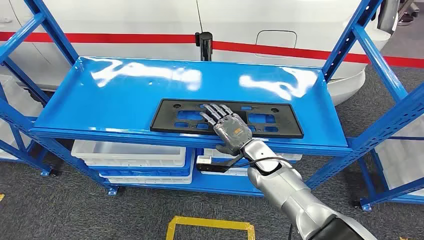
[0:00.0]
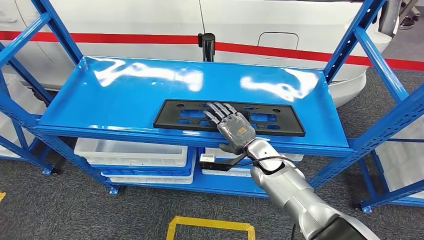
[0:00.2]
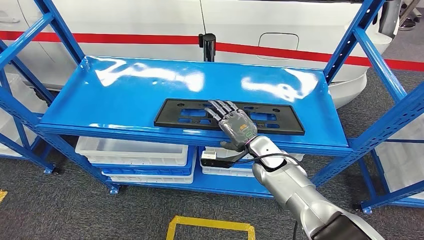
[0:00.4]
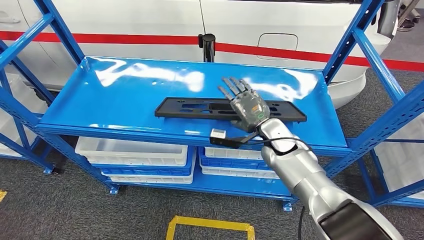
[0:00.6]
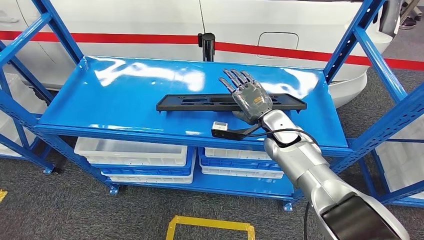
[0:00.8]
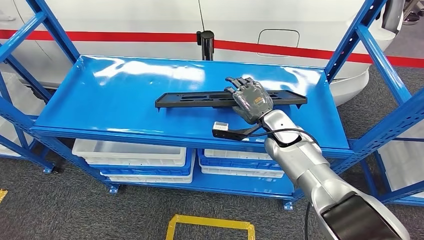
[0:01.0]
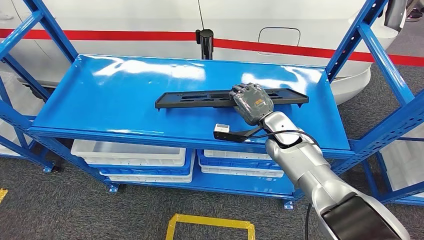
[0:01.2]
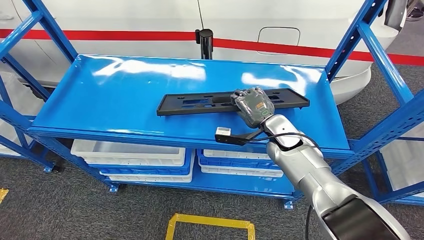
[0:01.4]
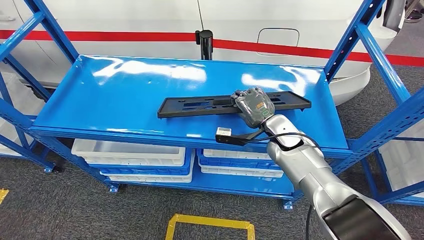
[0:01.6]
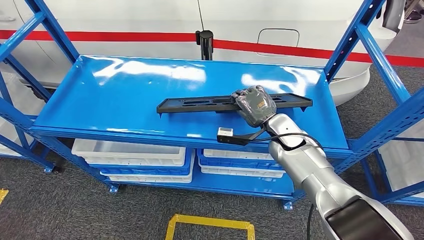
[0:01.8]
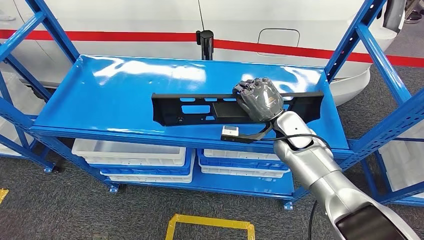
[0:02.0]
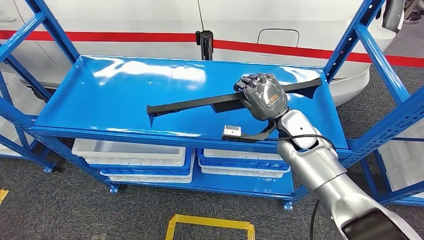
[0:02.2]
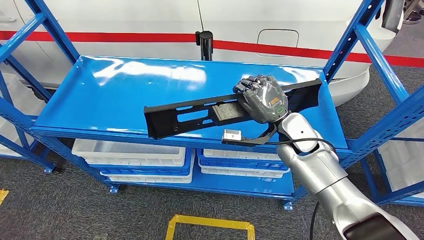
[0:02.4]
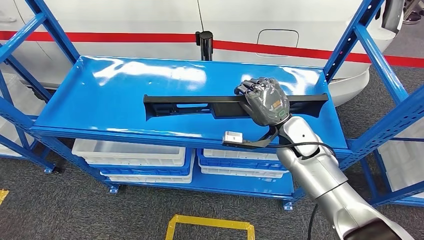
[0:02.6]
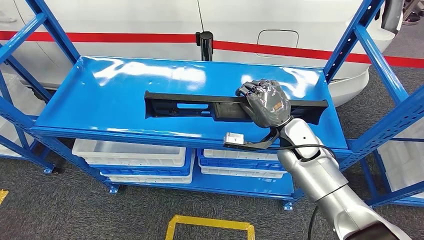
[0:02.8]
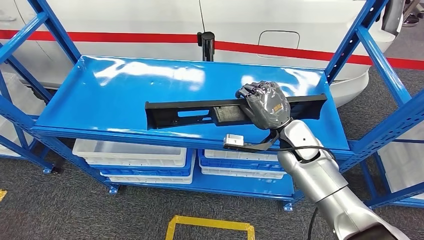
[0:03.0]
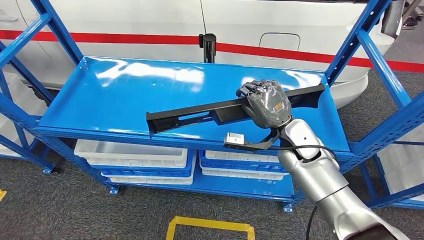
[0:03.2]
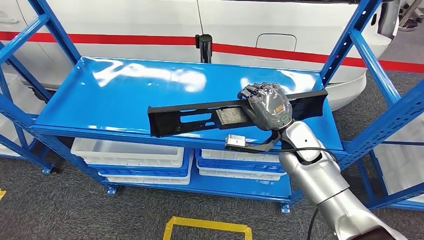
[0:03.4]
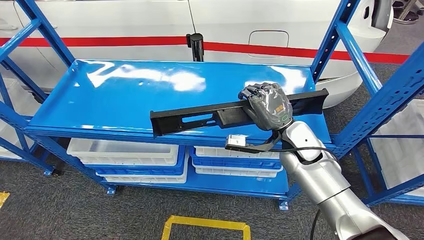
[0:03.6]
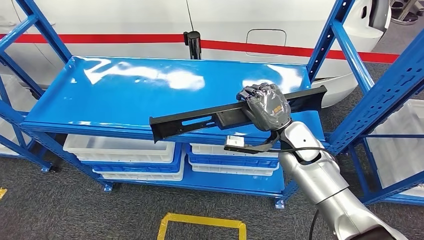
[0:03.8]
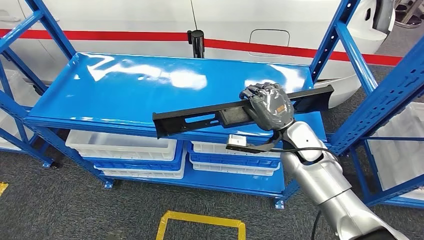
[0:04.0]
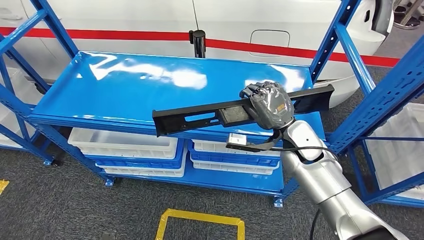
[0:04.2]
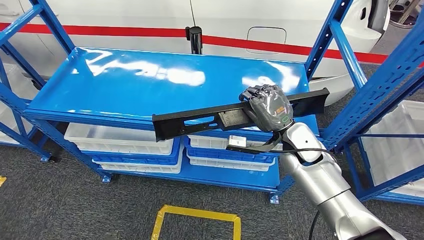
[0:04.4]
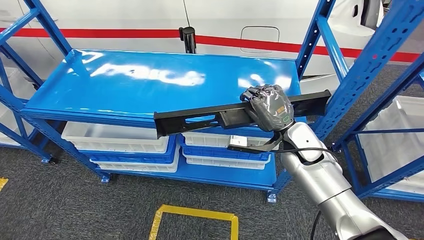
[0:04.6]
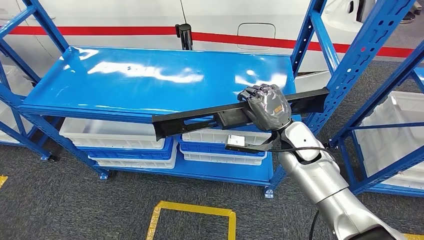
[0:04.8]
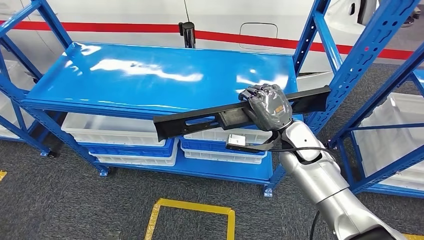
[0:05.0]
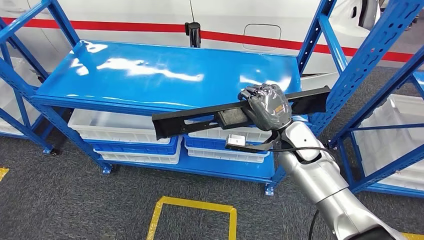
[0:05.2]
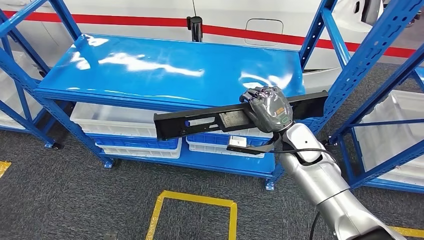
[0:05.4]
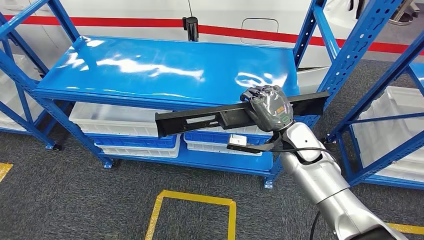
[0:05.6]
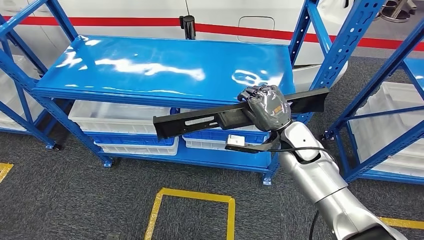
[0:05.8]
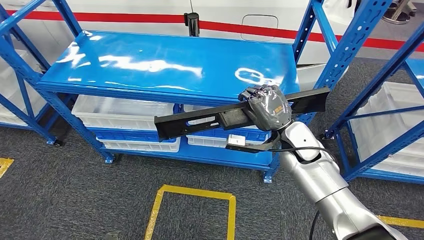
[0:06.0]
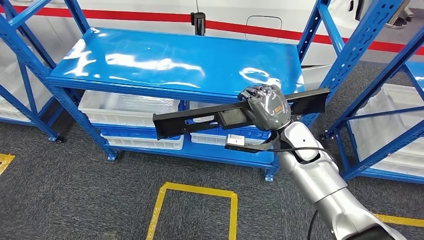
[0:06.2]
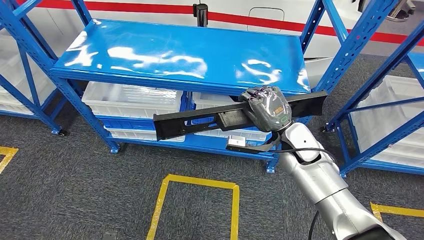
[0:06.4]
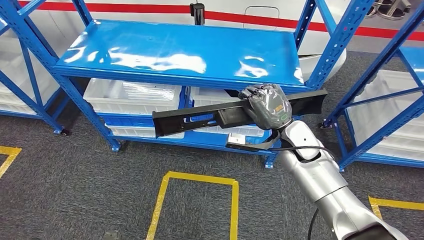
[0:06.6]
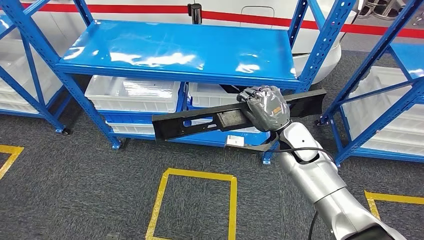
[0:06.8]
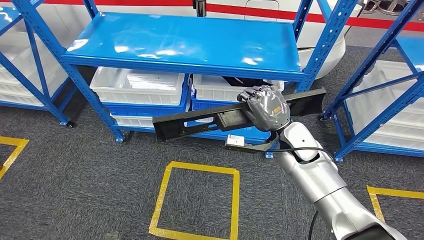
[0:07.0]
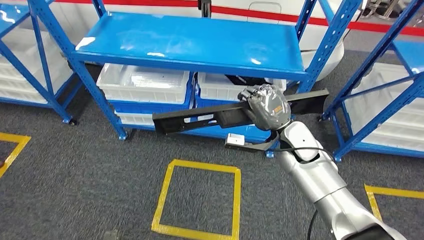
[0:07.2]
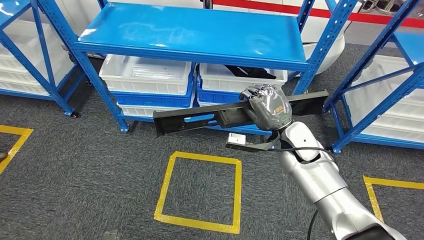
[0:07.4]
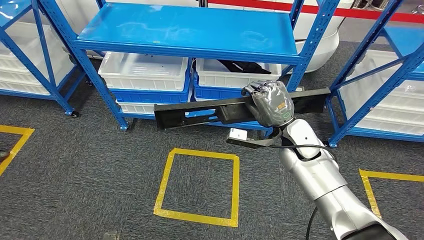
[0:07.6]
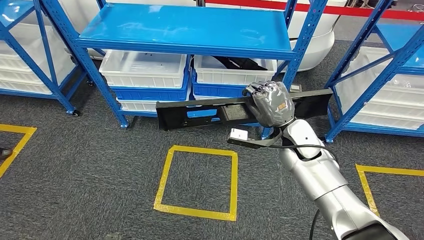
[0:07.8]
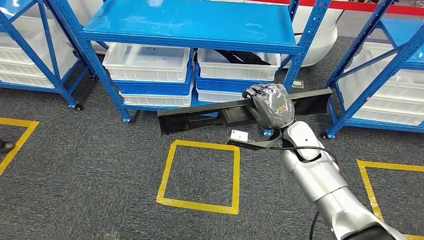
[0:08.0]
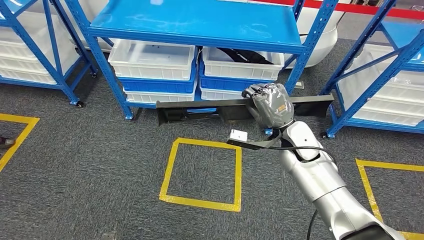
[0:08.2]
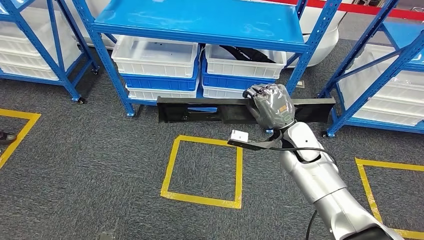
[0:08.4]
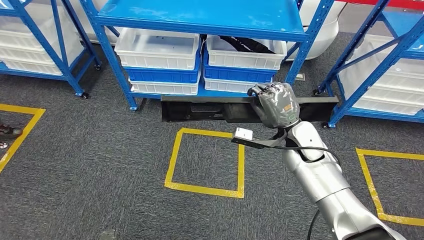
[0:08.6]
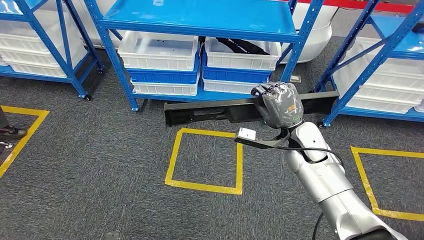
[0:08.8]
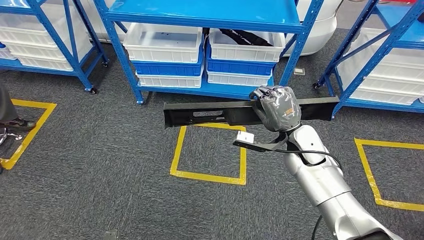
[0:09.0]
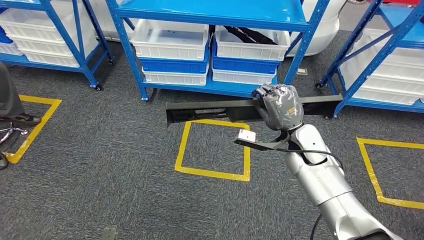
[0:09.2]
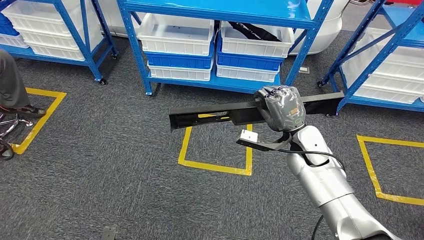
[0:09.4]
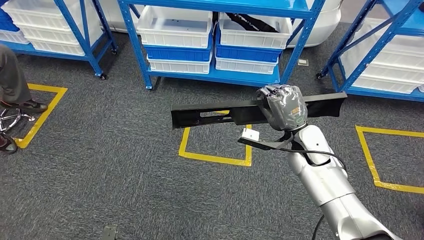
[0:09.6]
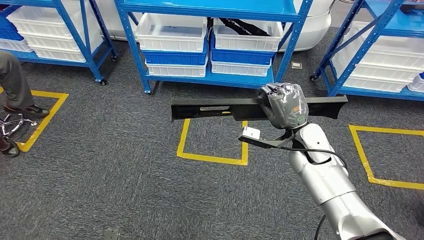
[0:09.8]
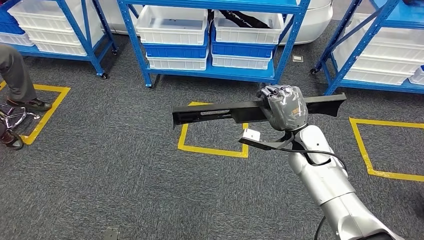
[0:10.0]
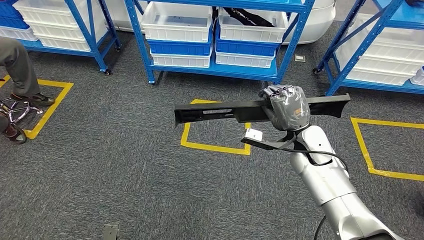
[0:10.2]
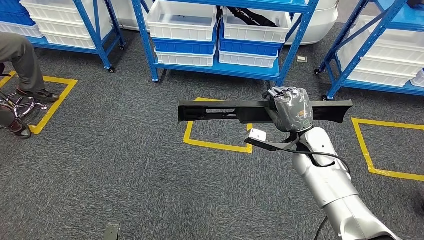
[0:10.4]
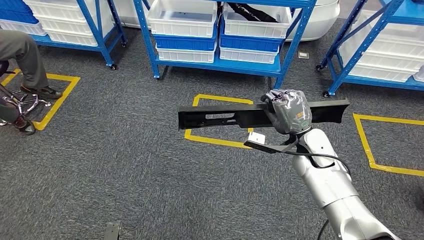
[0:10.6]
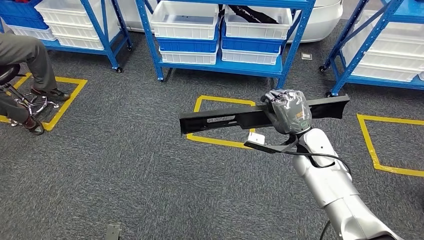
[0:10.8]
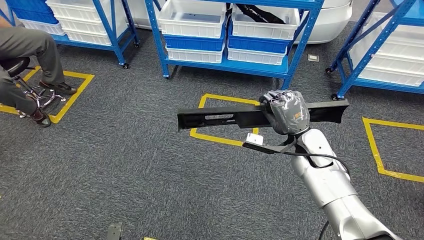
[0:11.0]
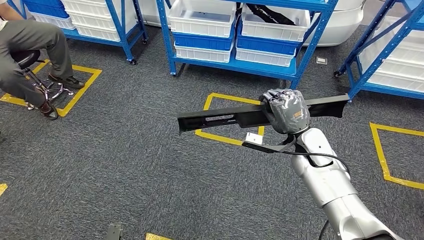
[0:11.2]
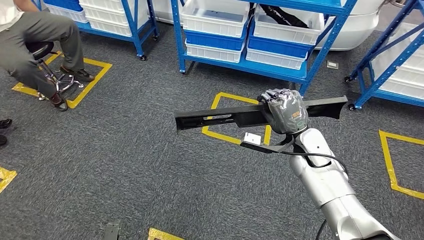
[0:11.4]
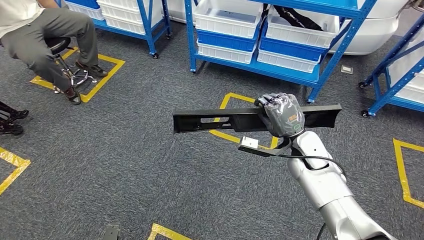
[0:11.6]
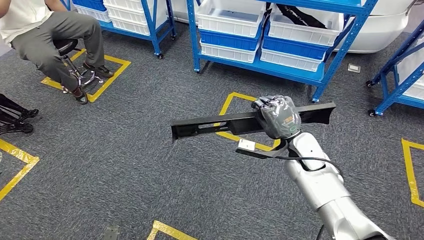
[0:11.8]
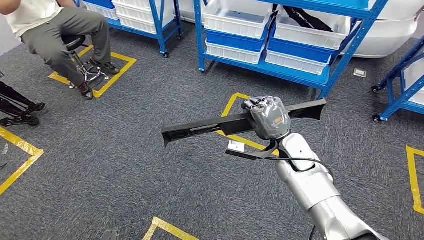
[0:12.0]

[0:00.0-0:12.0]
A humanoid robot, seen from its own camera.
Step, 0:00.0 to 0:06.0: Pick up the large material from the shelf.

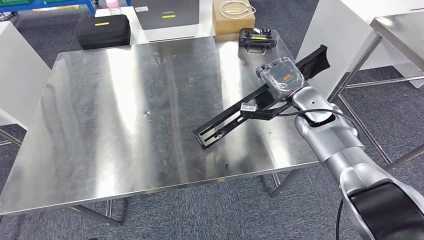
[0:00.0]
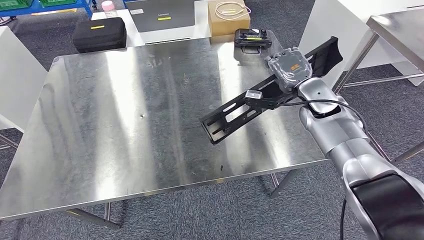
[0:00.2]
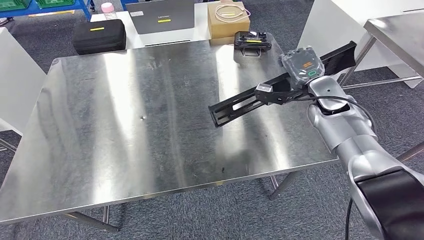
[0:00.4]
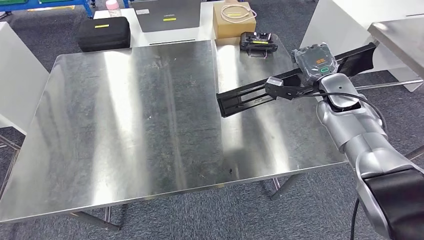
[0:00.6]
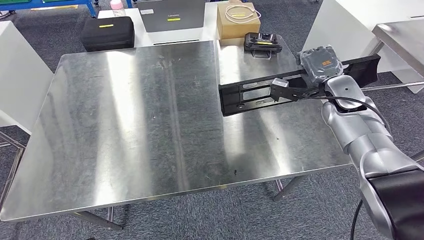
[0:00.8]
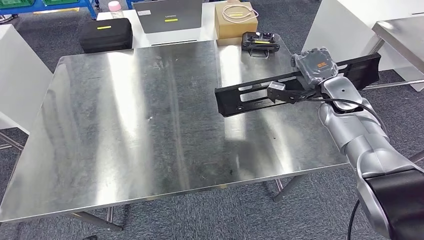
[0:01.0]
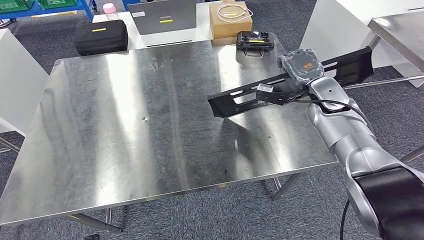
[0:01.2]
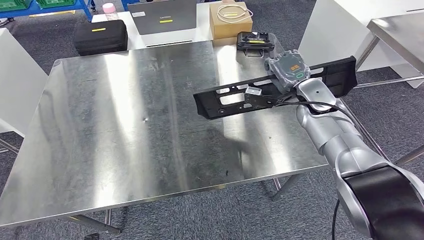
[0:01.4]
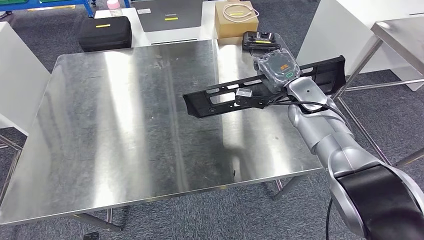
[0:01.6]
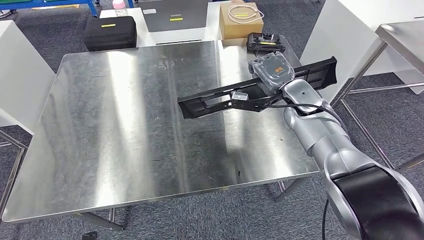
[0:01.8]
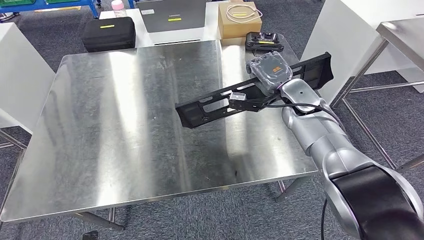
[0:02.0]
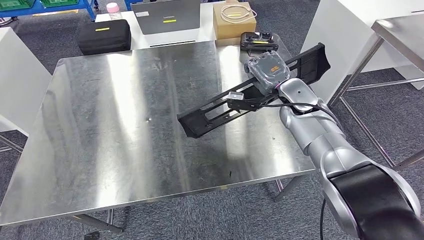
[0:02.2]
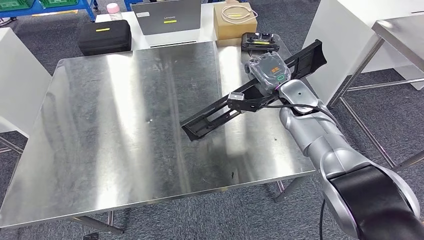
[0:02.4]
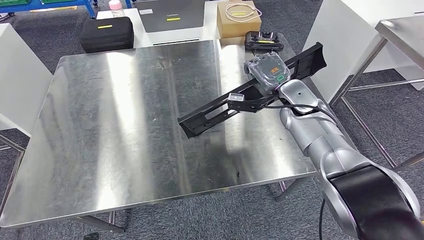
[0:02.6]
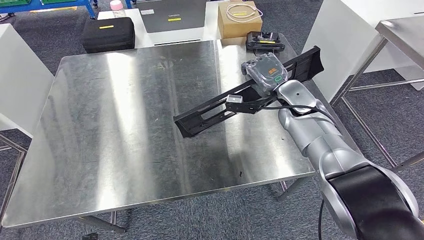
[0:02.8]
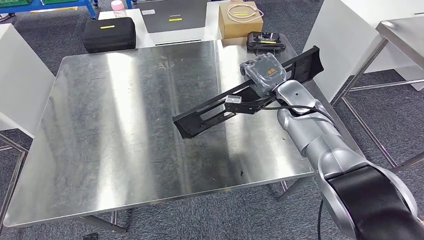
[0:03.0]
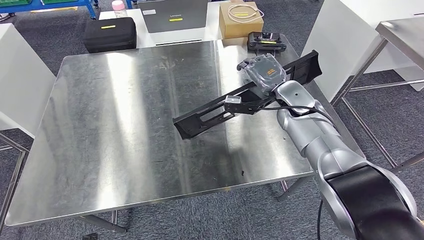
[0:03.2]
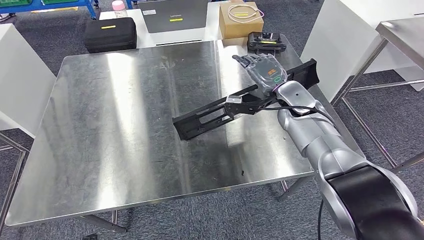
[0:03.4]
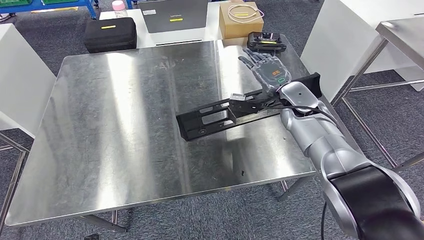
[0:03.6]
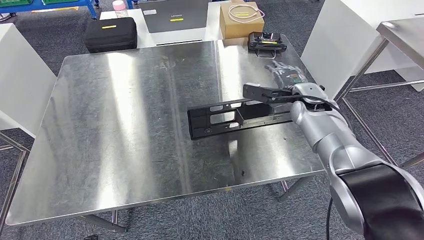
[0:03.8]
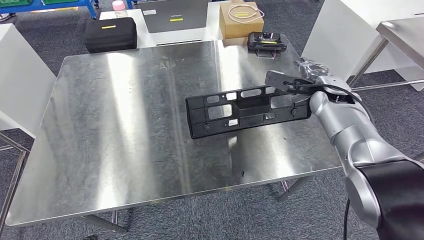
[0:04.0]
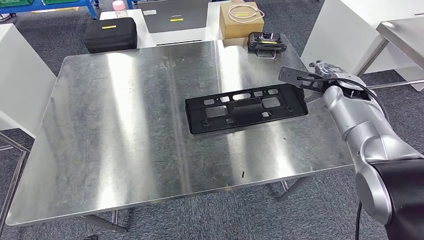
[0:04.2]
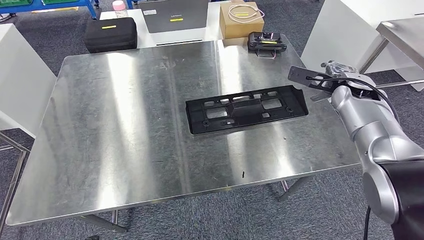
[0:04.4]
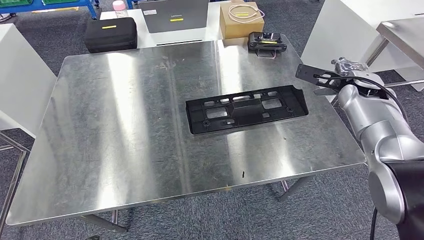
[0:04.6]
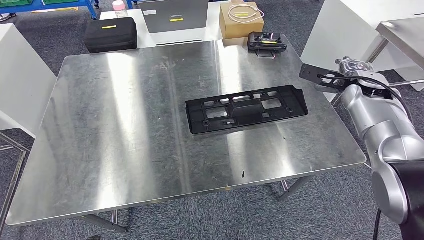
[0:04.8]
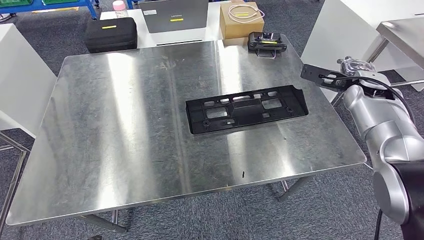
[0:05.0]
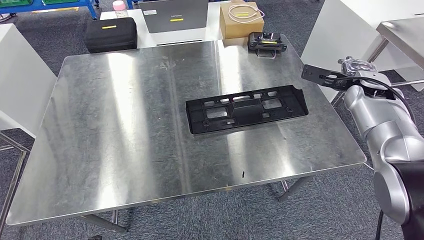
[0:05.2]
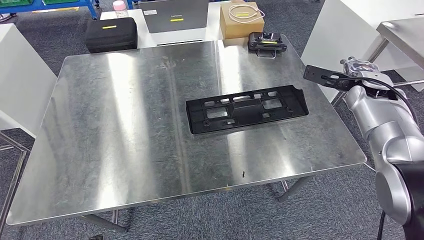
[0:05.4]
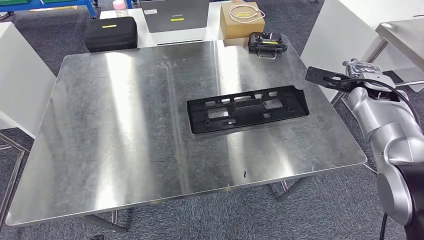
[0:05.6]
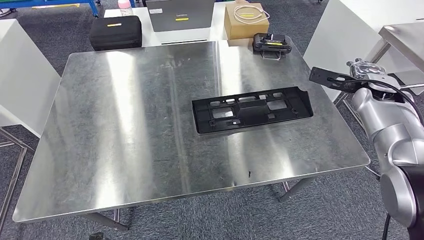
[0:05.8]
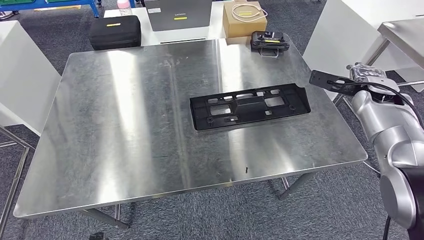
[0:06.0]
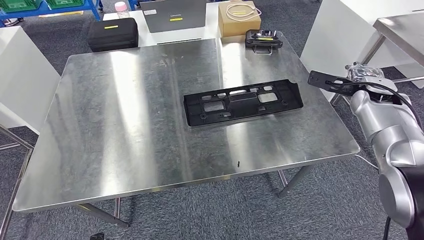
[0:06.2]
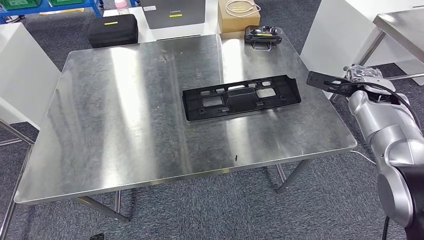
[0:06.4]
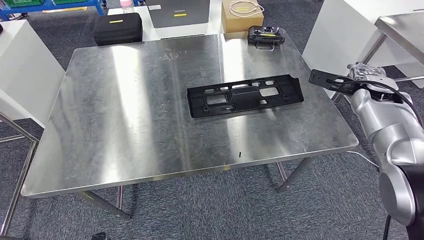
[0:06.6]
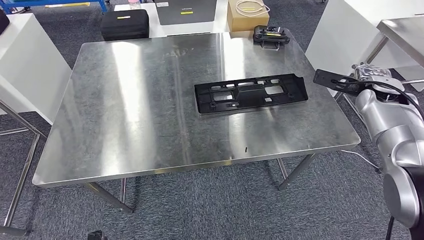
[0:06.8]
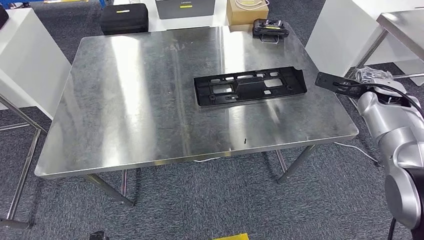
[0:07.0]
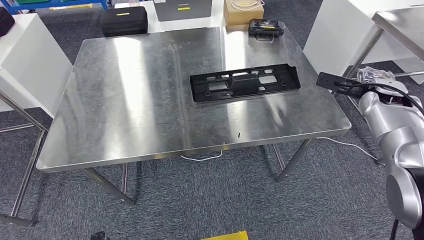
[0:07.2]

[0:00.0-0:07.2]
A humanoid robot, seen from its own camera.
Step, 0:00.0 to 0:05.4: Insert the large material into the corresponding slot on the workbench.
